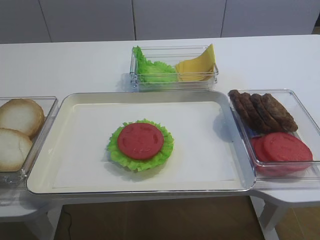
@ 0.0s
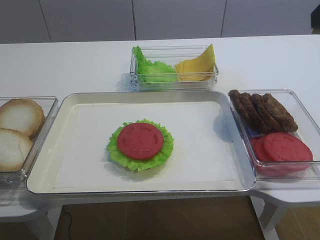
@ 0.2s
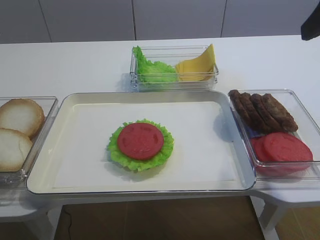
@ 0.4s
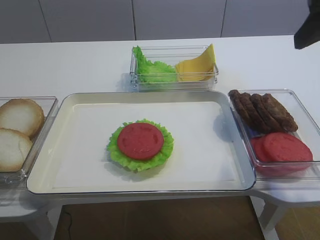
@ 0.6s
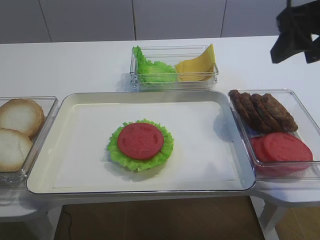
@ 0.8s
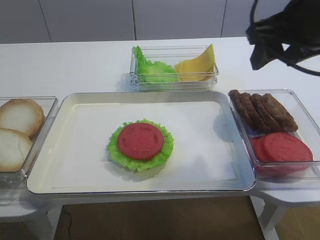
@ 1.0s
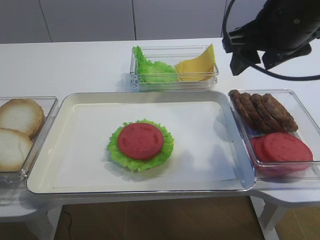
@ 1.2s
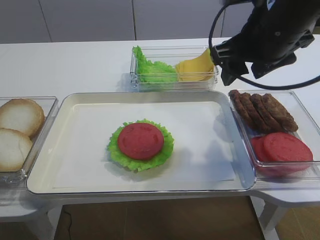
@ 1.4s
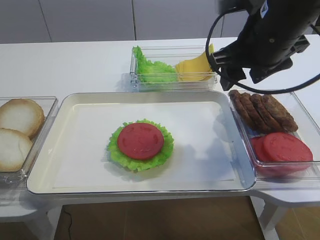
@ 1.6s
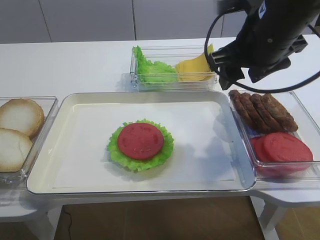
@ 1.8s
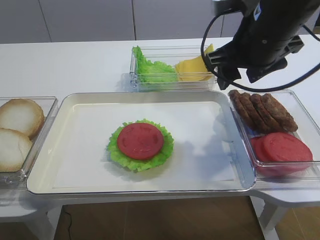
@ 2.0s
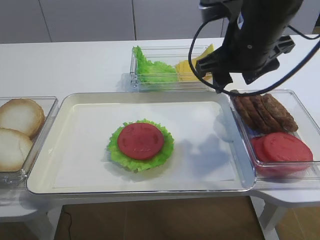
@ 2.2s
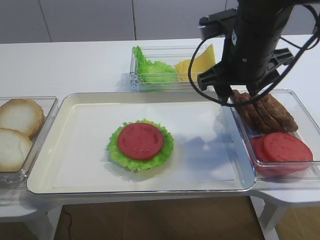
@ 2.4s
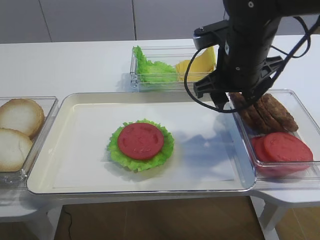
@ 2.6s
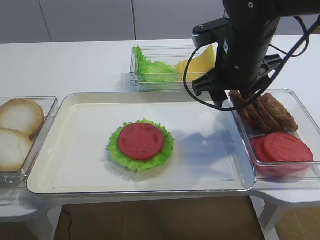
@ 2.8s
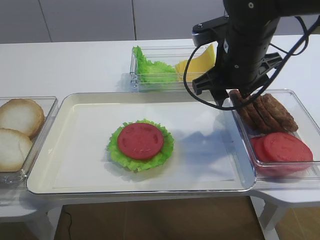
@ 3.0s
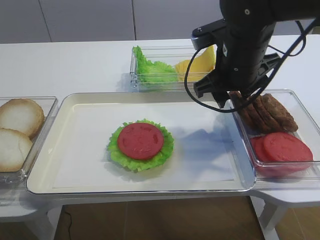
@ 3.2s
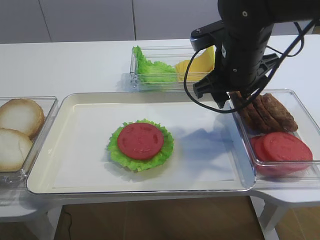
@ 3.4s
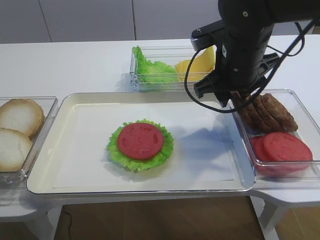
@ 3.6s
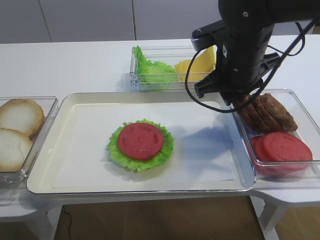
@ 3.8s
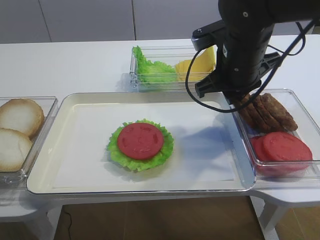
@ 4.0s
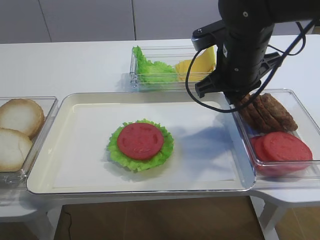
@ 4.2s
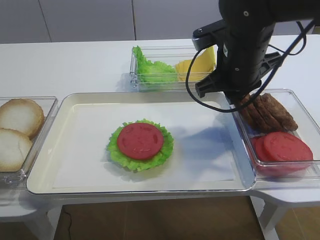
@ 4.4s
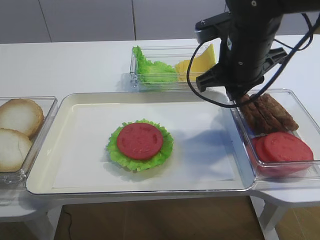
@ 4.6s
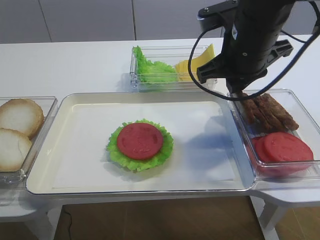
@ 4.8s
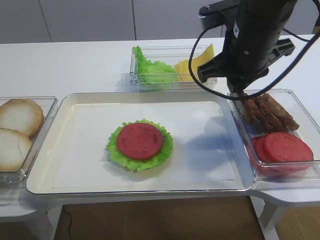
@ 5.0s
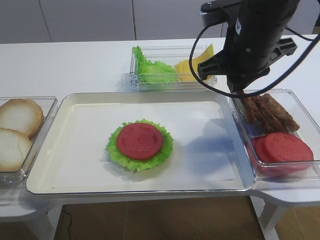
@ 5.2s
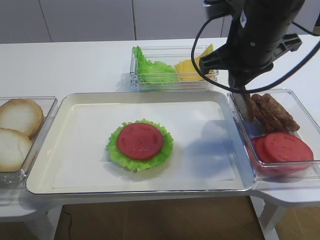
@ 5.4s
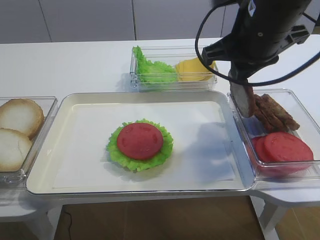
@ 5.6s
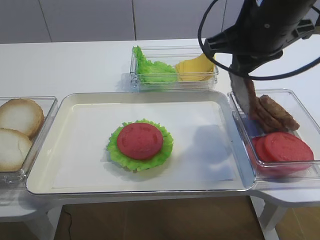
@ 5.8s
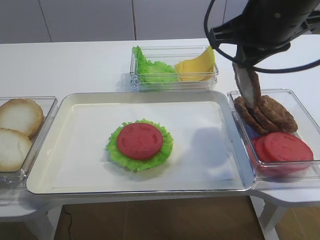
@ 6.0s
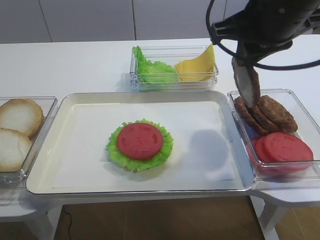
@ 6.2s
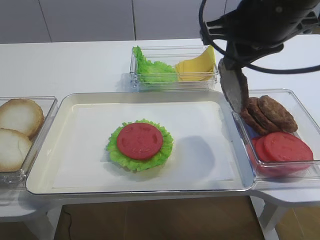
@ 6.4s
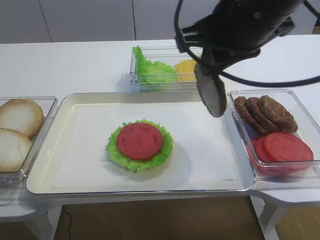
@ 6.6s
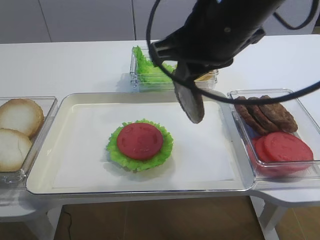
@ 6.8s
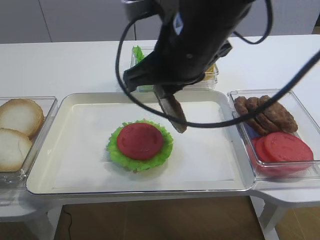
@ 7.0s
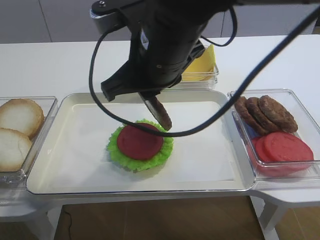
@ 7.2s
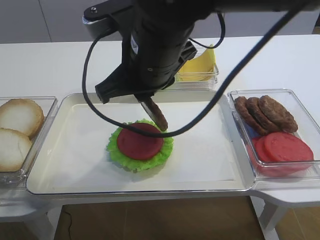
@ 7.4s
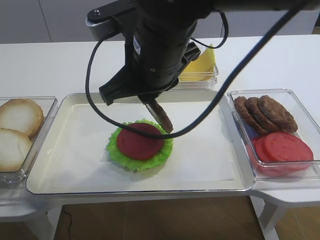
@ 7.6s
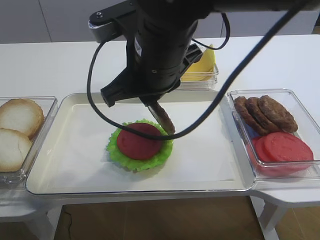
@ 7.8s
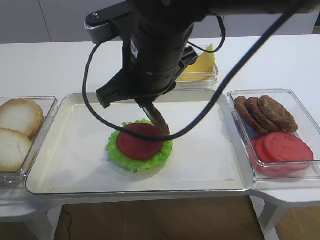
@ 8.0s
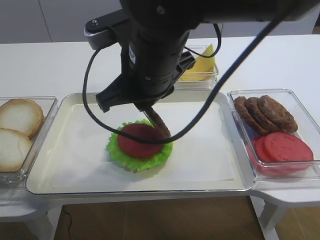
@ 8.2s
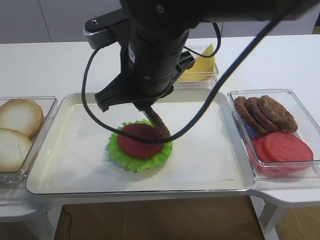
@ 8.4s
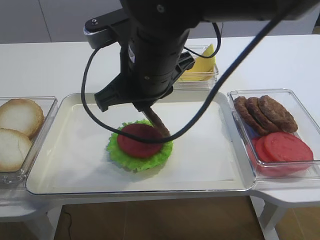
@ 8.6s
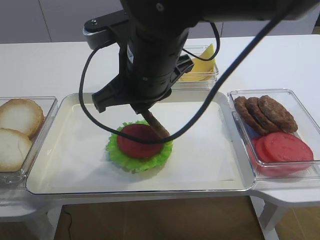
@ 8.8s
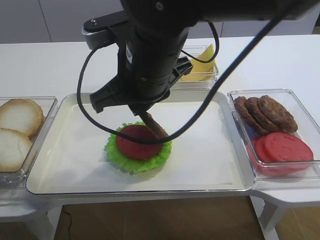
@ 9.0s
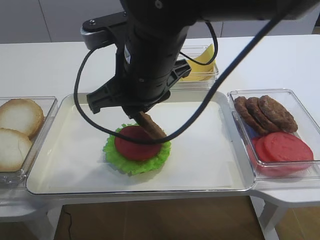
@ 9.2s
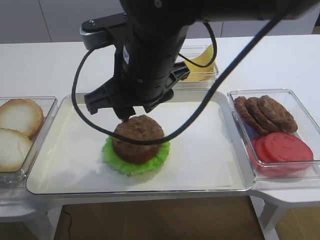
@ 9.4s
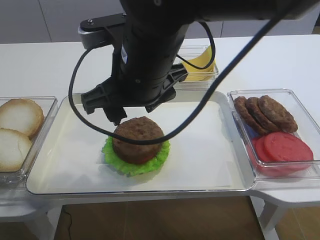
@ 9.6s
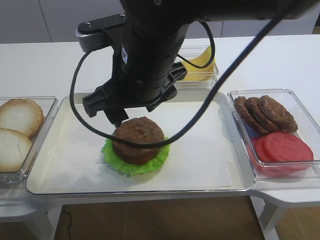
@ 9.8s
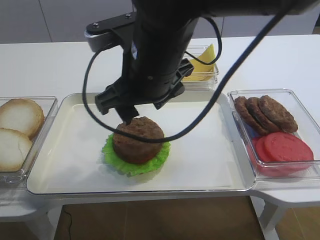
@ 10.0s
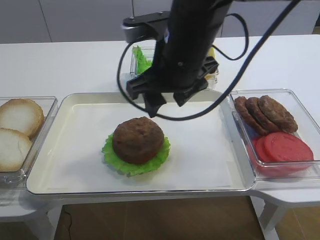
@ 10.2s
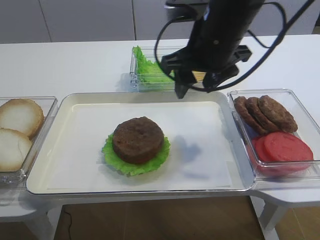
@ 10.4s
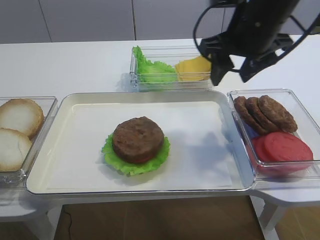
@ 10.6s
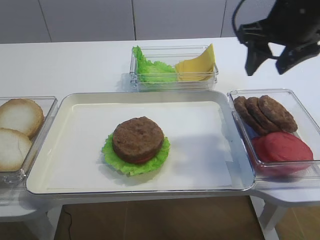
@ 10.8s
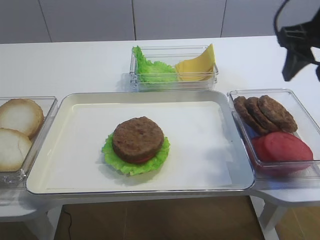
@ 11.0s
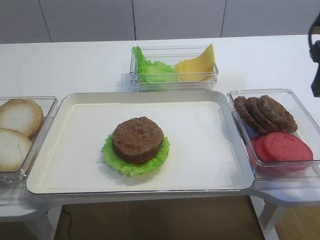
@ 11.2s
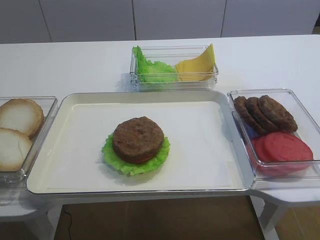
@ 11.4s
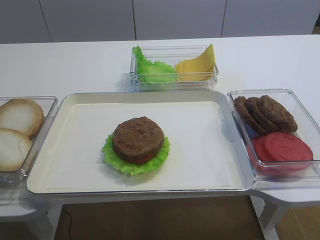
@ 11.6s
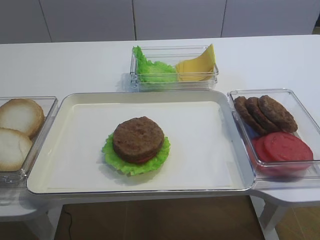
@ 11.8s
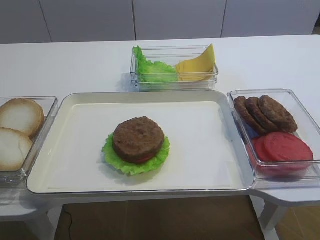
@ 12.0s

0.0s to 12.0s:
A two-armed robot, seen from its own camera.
Step, 0.0s to 5.2s: Pick up the cutlet with the right gripper.
Step, 5.4s to 9.6s: Place the cutlet on the tomato slice with the right gripper.
0.0s to 1.6s: The right gripper goes approximately 20 cm to the left, forward and downward.
1.6s to 3.0s: The right gripper ends up about 5 cm from where it was.
3.0s to 4.4s: The right gripper closes up.
4.4s to 6.0s: The right gripper moves upward, roughly 10 cm.
6.0s to 7.6s: The right gripper travels to the left by some 15 cm.
7.6s to 9.0s: The grippers make only small movements.
9.0s to 10.4s: The right gripper goes some 10 cm to the right and forward, and opens its fingers.
10.4s to 12.0s: The right gripper moves backward and to the right, roughly 30 cm.

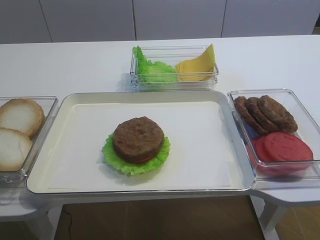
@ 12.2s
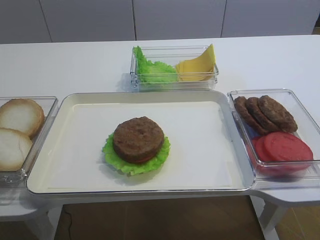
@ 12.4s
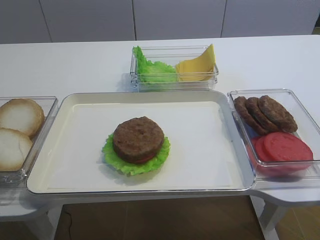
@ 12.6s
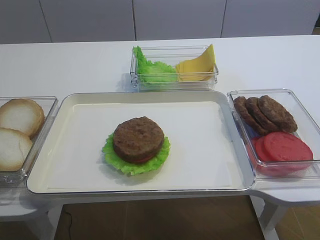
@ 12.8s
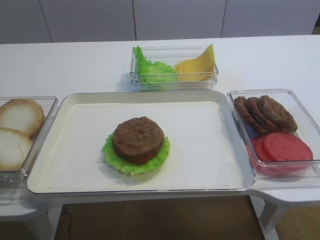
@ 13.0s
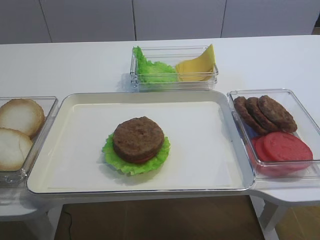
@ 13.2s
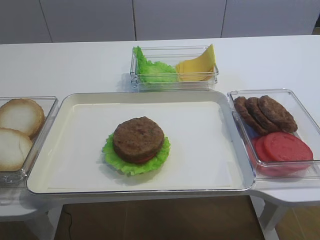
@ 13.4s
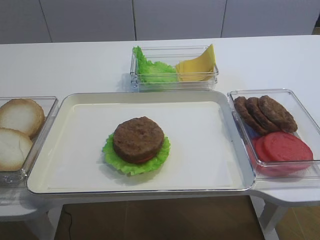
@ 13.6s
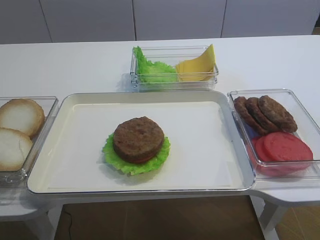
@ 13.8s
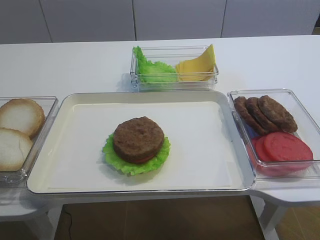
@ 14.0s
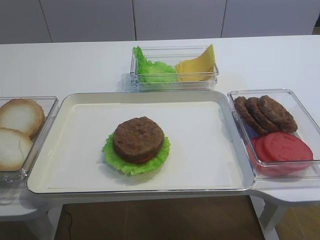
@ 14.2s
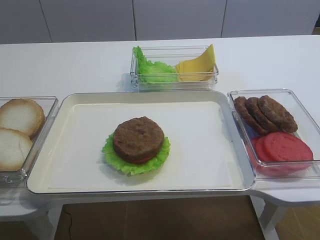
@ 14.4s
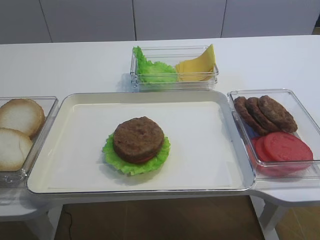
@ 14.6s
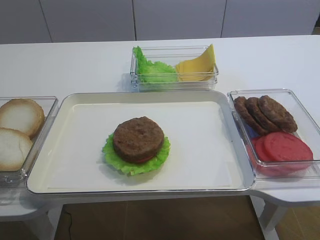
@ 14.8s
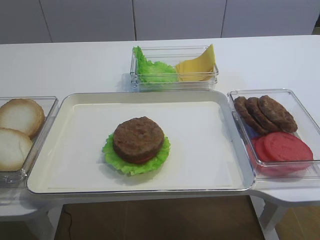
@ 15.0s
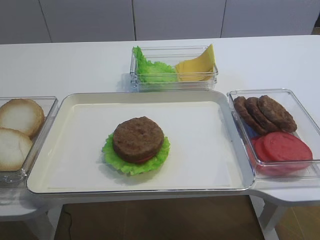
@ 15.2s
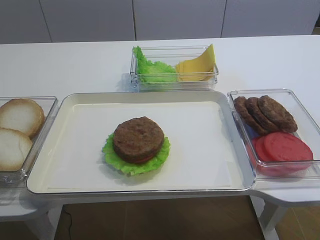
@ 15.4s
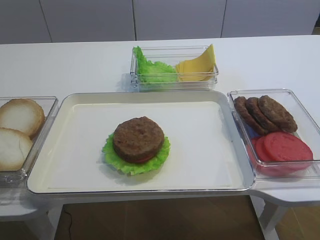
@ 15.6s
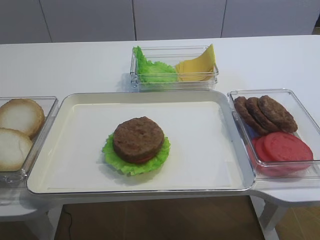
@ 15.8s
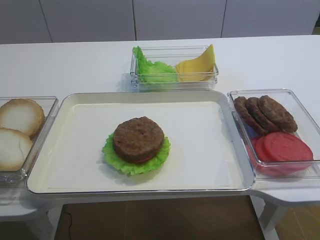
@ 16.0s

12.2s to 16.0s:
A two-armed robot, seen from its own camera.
12.2s to 13.4s: The right gripper travels backward by approximately 10 cm.
14.8s to 16.0s: Both grippers stay about where they are.

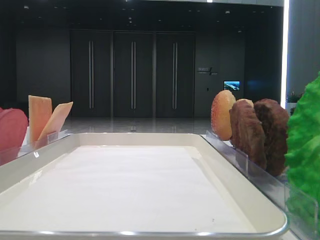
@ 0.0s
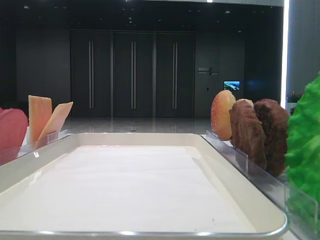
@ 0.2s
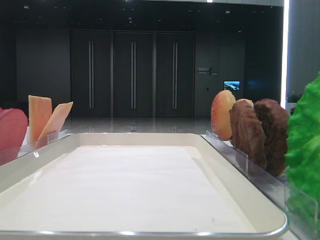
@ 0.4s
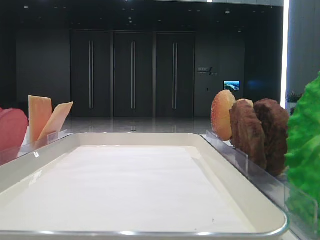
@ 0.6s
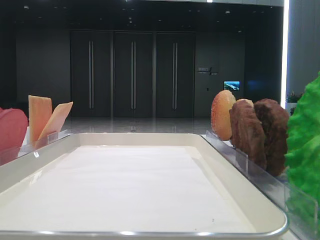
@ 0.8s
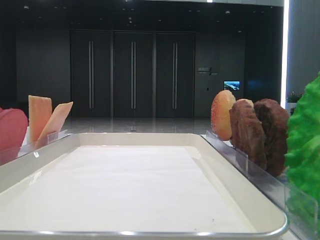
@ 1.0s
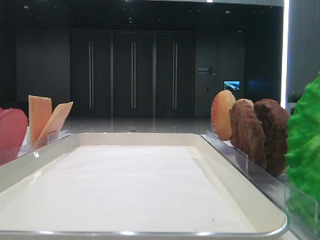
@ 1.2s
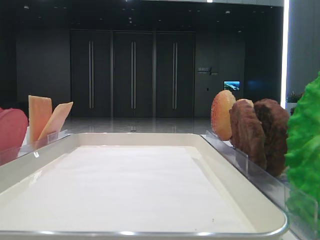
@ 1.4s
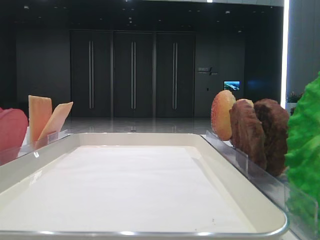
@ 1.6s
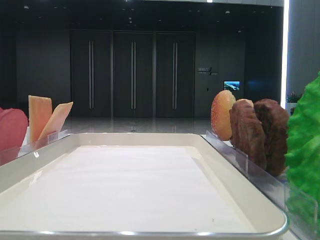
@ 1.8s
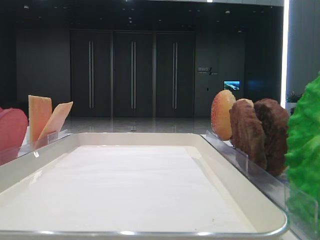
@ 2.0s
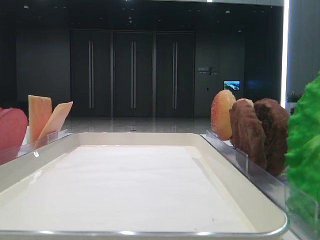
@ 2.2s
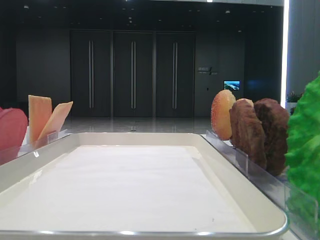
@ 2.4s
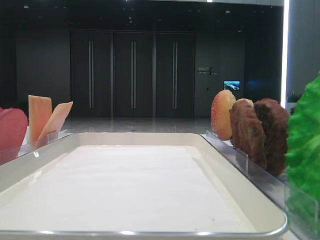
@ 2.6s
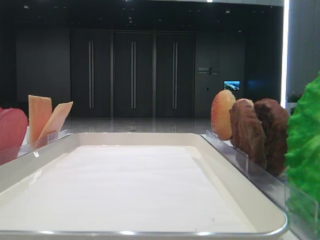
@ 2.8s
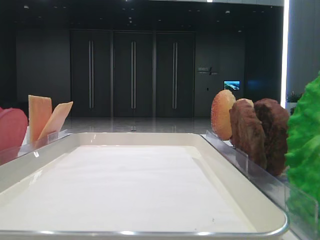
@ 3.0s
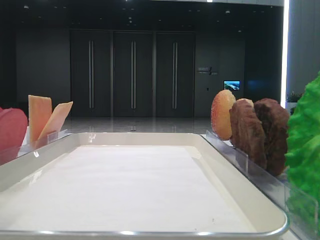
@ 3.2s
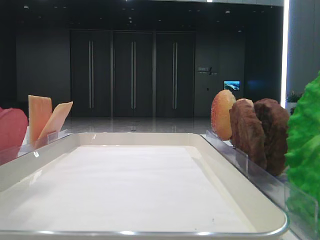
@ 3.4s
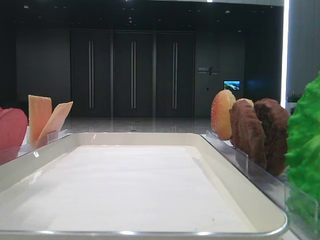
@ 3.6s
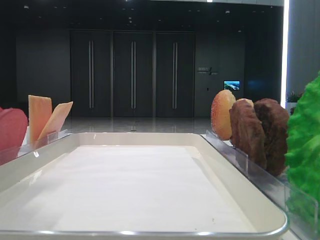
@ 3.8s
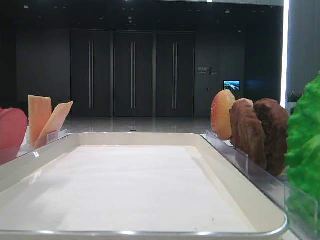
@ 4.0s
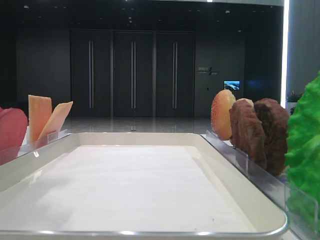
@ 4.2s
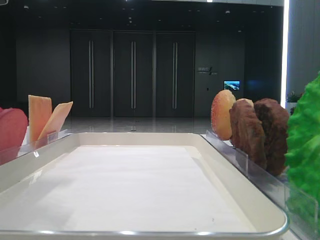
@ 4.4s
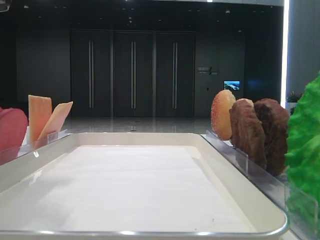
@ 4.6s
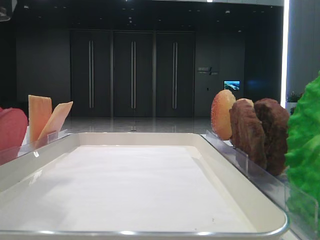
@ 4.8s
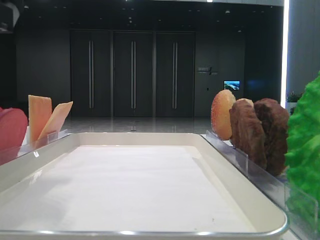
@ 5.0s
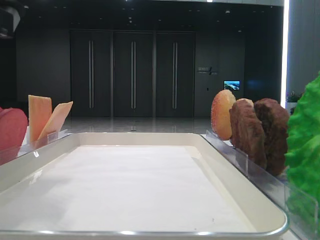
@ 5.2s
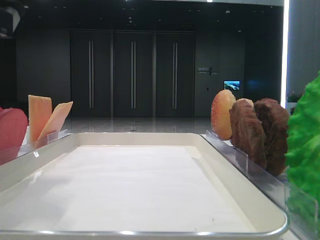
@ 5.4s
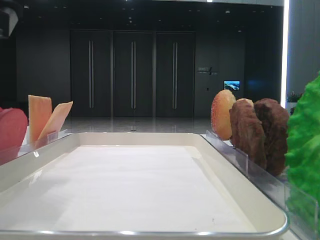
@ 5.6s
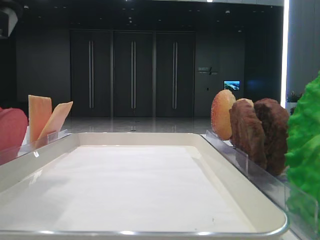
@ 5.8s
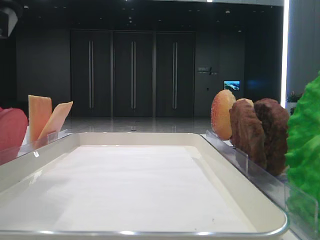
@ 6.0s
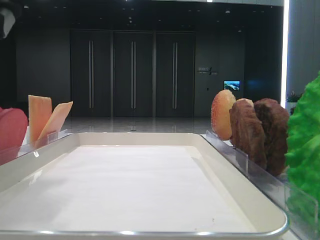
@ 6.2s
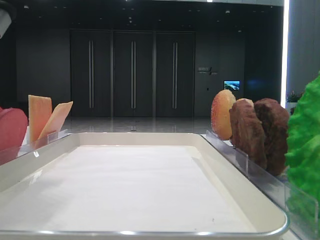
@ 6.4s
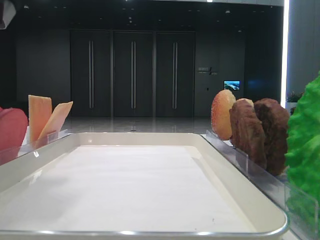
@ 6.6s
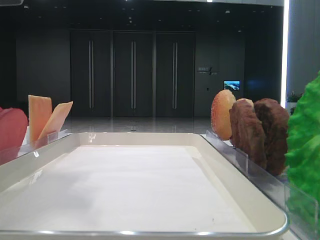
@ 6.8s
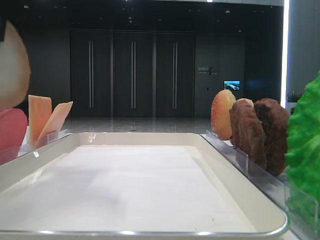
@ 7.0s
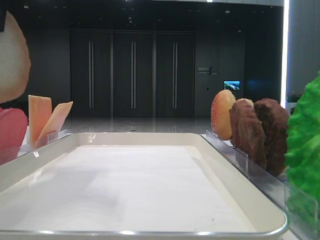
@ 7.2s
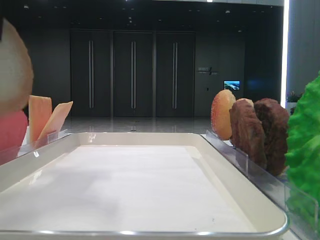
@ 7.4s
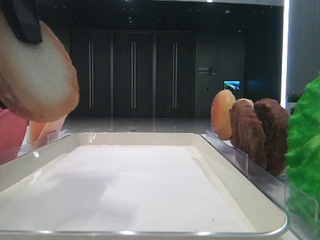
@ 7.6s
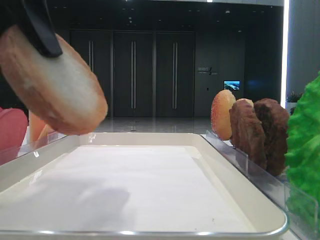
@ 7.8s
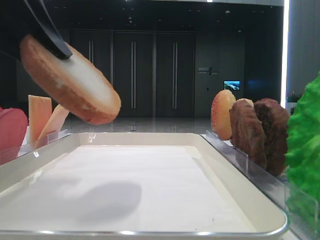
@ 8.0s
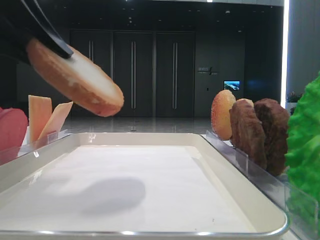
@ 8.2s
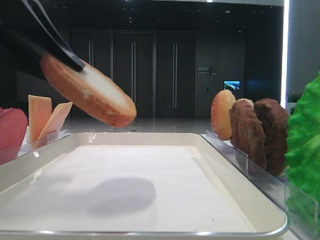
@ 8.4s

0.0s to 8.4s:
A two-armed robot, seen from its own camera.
2.8s to 4.2s: The left gripper goes approximately 15 cm to the right.
5.6s to 7.0s: The left gripper travels upward by some 5 cm, and closes up.
7.0s to 8.4s: The left gripper moves downward, approximately 10 cm.
